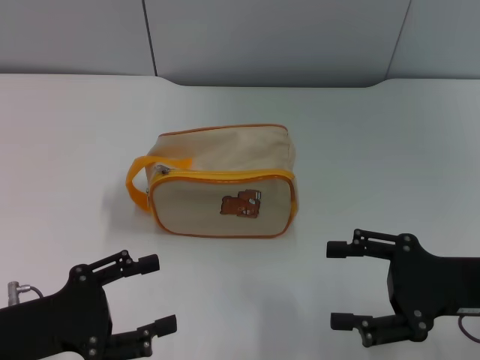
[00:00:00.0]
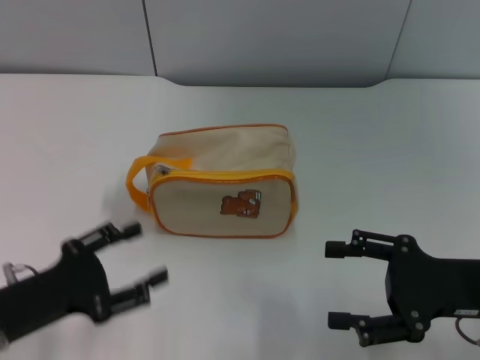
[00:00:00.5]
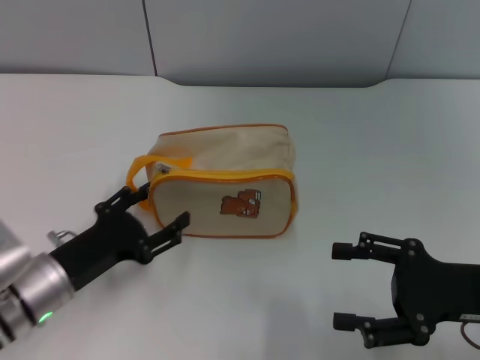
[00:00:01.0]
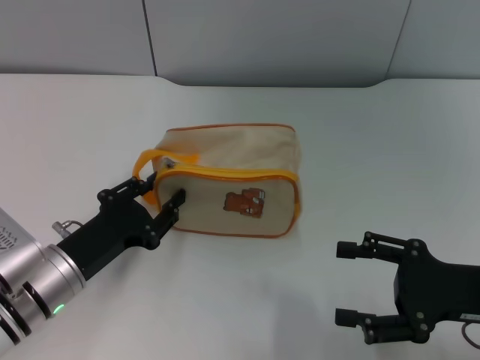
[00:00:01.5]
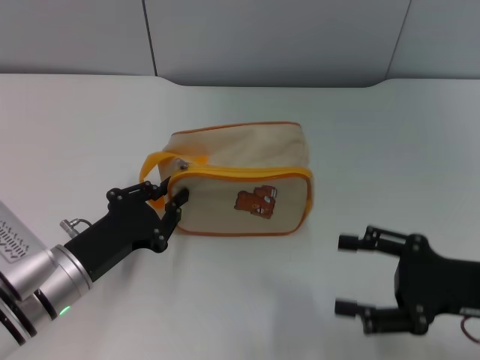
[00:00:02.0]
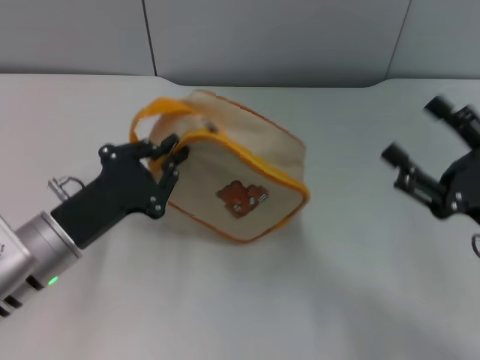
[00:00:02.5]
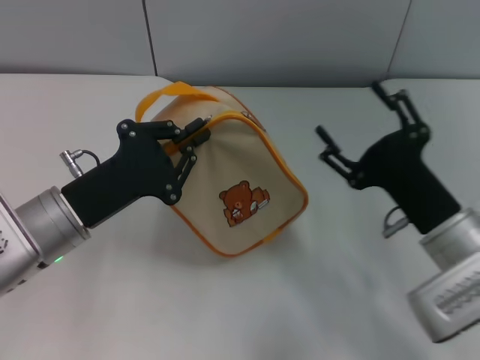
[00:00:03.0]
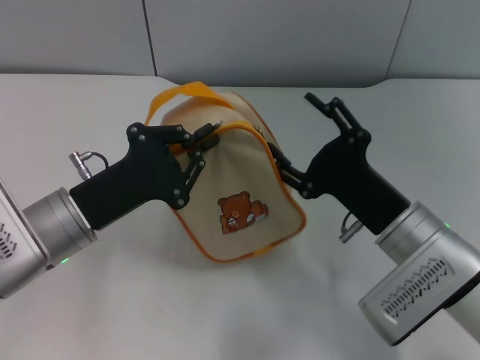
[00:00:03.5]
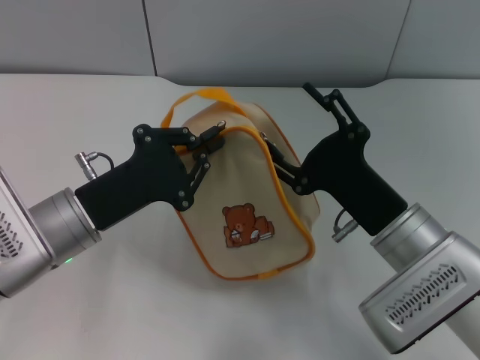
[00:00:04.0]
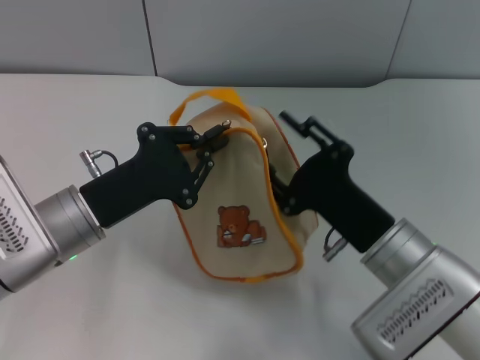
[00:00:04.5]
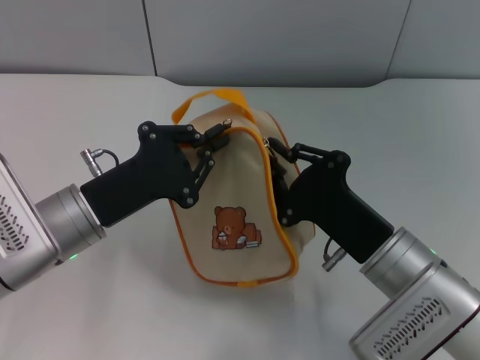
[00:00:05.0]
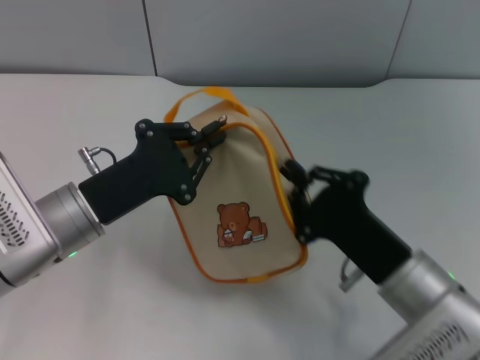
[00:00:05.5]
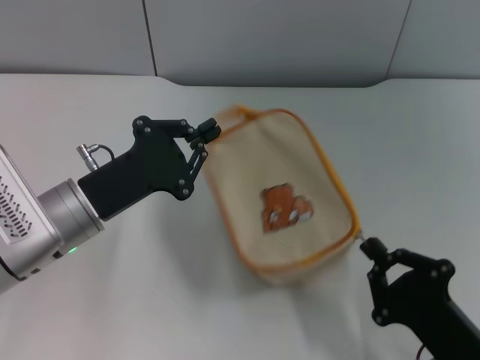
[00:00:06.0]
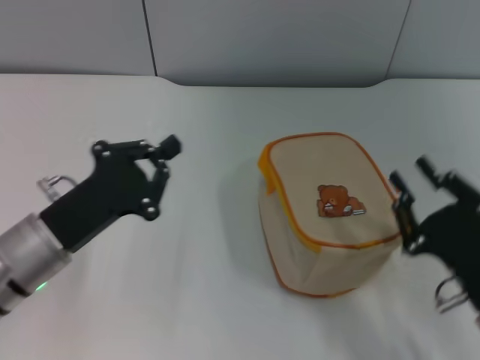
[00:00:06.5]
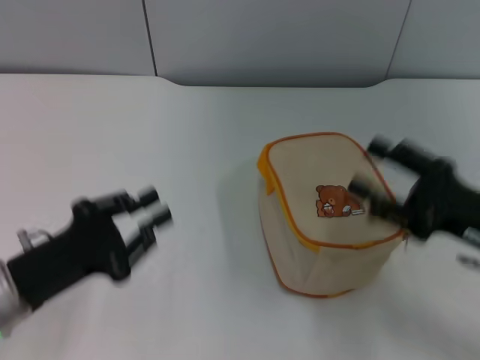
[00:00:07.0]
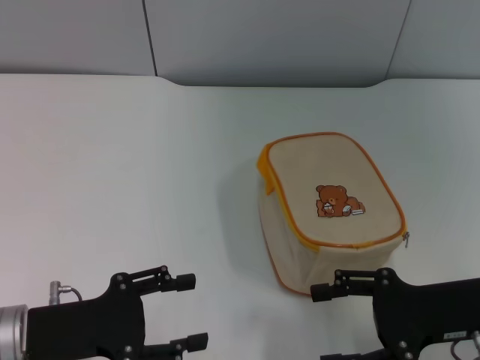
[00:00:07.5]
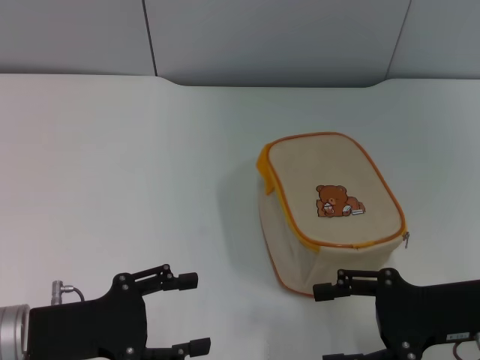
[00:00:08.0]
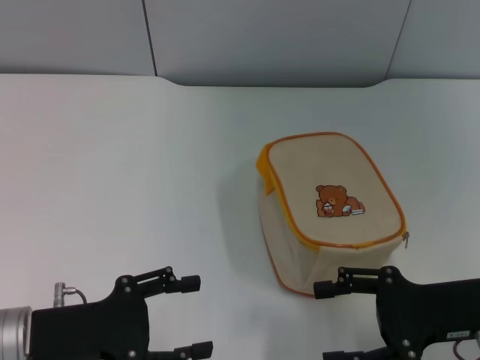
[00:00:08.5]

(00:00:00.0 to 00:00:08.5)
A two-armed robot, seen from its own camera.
Step, 00:00:00.0 - 00:00:02.5: Pick up the bag with left gripper.
Step, 00:00:03.0 - 00:00:06.5: Unzip the zipper of bag with right gripper.
00:00:00.0 - 00:00:02.0: The left gripper heads forward and to the right, covering approximately 10 cm, and closes.
00:00:02.0 - 00:00:04.0: The right gripper goes some 10 cm to the left. The left gripper travels upward by some 5 cm.
00:00:04.0 - 00:00:06.5: The right gripper travels to the right and backward by about 10 cm, and closes up.
00:00:06.5 - 00:00:08.5: The left gripper moves backward, approximately 5 cm, and opens its fingers. The right gripper is displaced forward by approximately 5 cm, and opens its fingers.

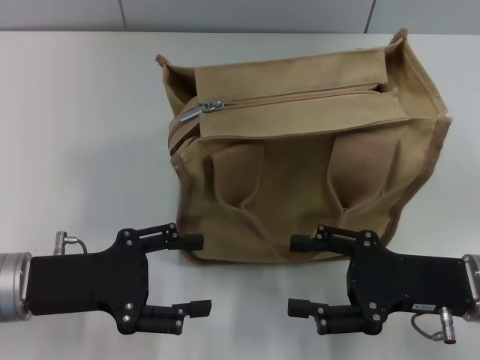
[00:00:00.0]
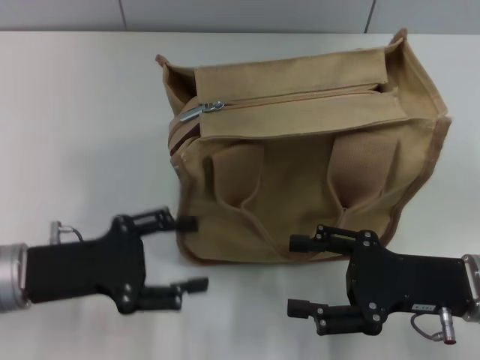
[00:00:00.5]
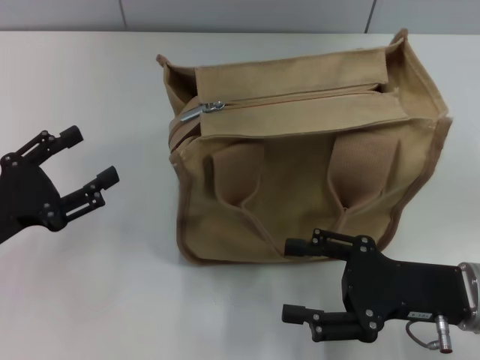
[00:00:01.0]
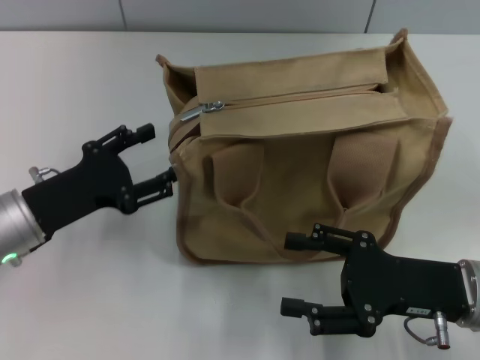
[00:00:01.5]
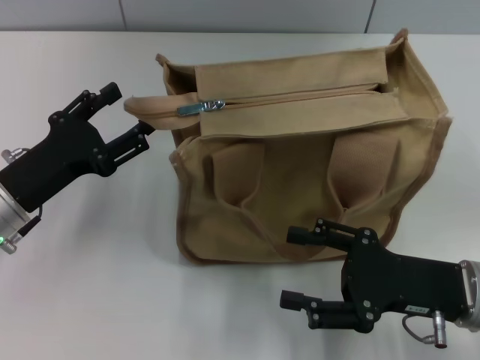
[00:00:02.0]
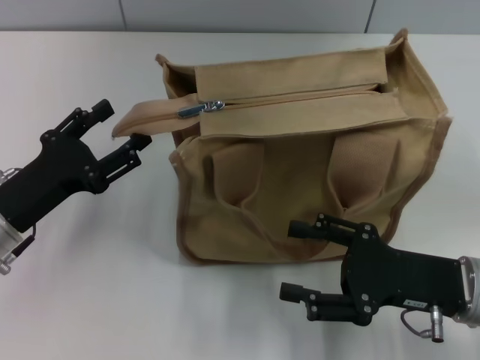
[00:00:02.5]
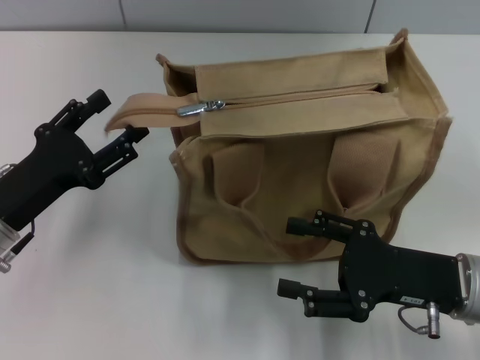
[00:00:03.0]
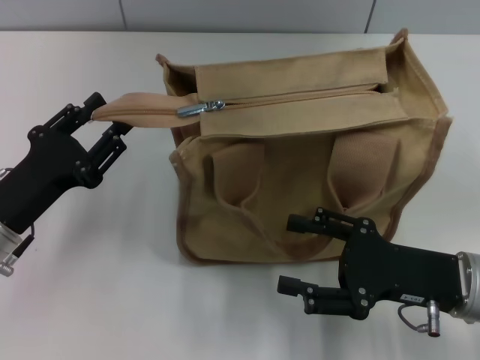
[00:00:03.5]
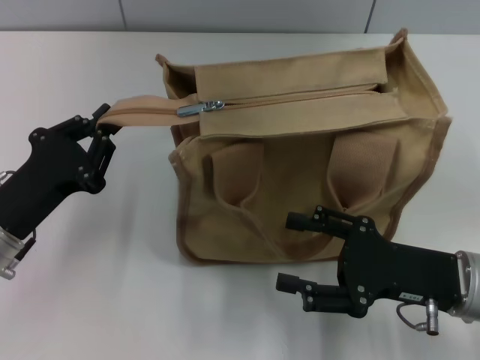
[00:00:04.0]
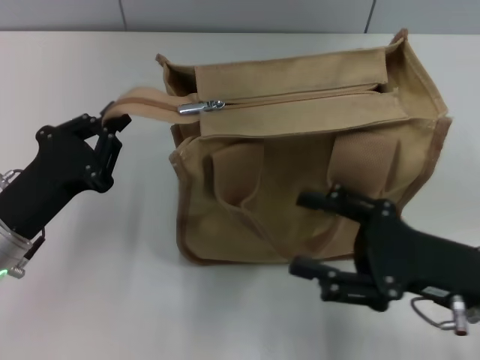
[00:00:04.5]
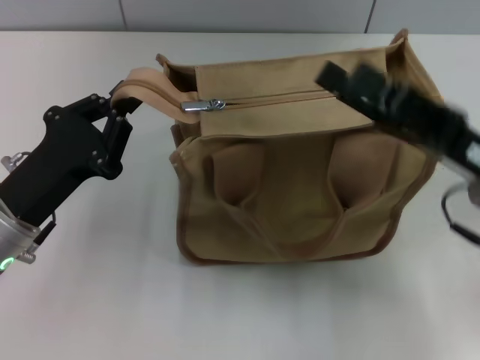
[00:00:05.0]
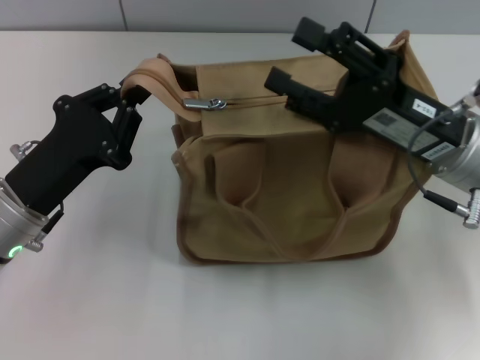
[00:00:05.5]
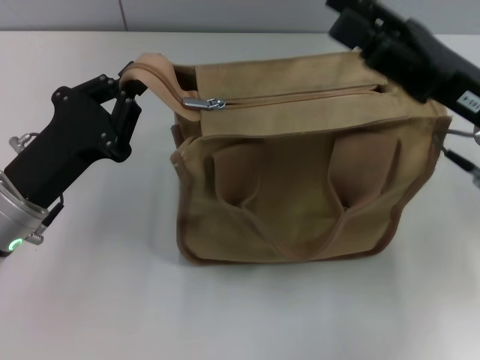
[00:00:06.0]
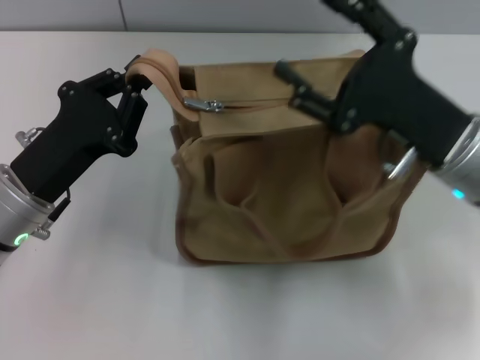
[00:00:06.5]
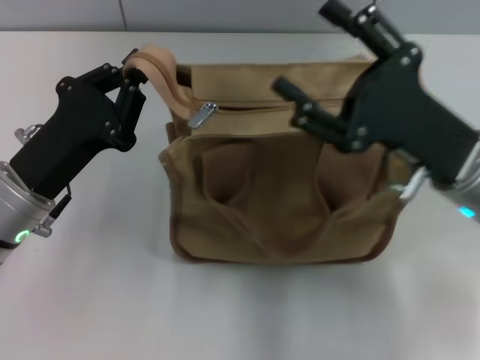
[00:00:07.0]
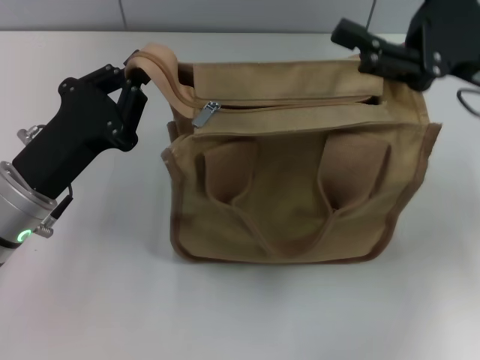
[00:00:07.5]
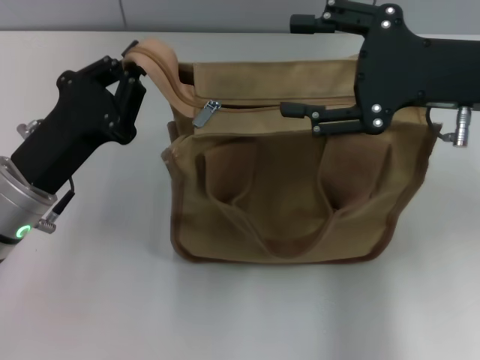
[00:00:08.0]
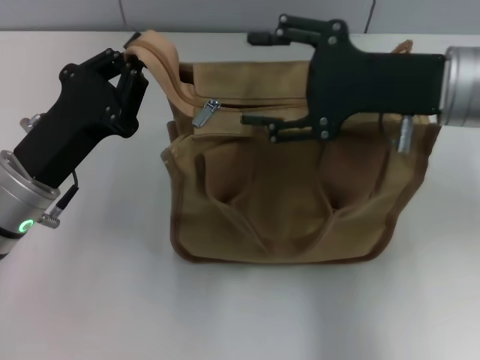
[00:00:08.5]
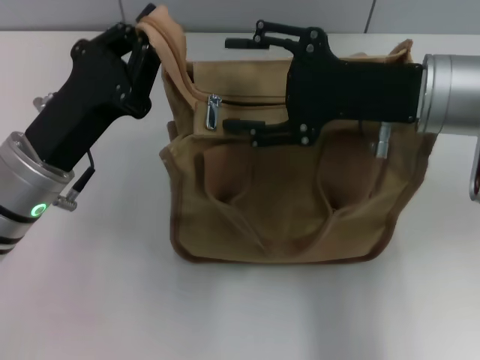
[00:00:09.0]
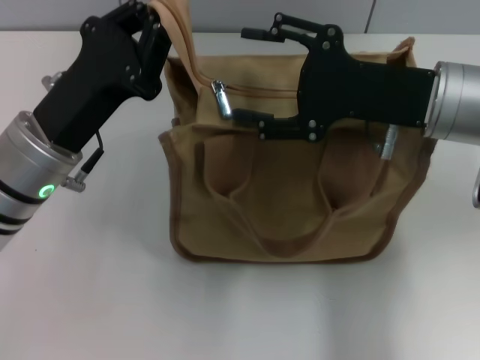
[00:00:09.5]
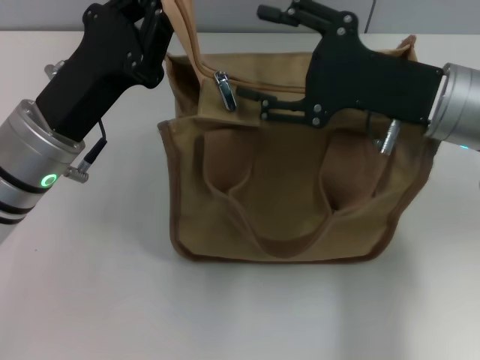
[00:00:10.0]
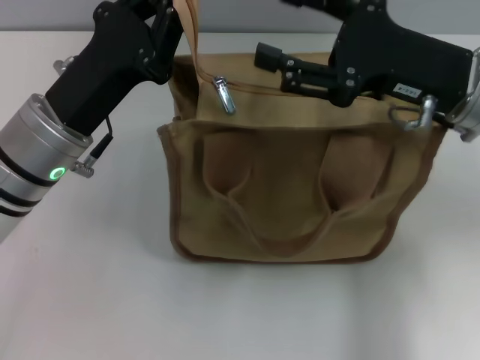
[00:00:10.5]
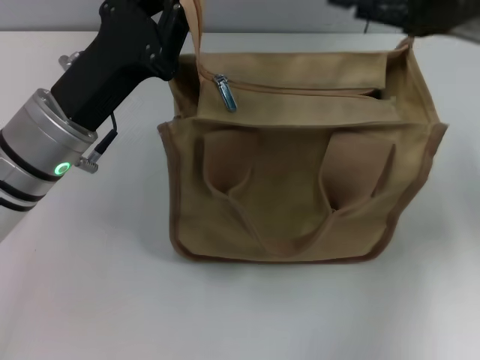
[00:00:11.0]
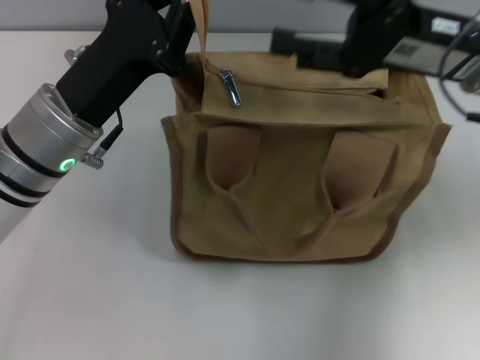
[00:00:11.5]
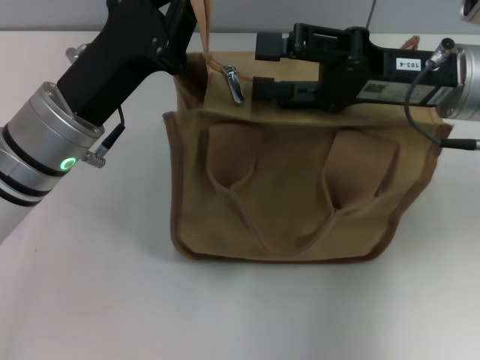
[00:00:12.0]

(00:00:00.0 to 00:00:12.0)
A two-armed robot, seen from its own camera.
00:00:02.0 - 00:00:04.0: The left gripper closes its fingers.
00:00:04.0 - 00:00:06.0: The right gripper is displaced upward and forward by about 10 cm.
00:00:06.0 - 00:00:08.0: The right gripper heads upward, covering some 5 cm.
00:00:08.0 - 00:00:10.0: The right gripper changes place by about 5 cm. The left gripper ends up some 5 cm from where it was.

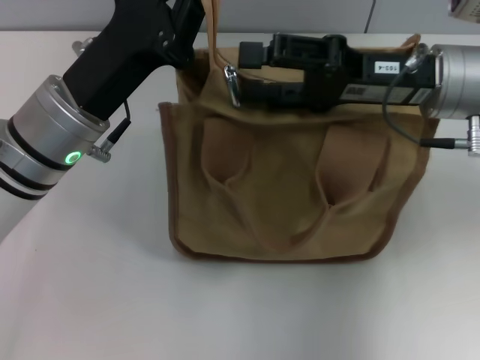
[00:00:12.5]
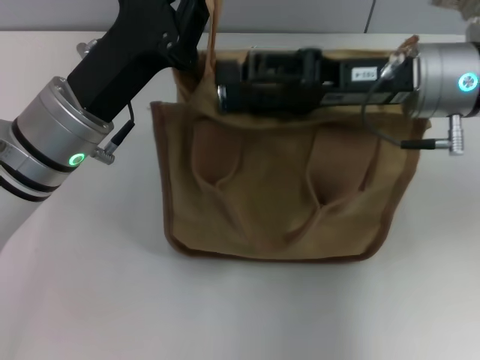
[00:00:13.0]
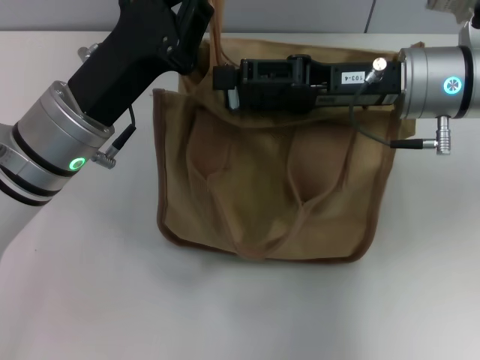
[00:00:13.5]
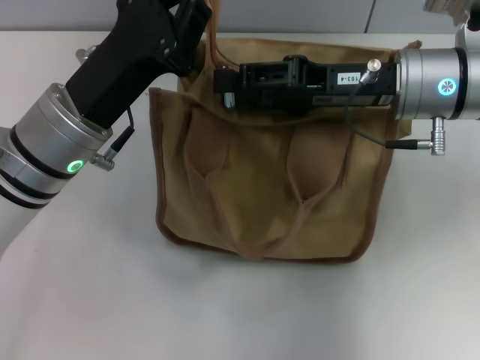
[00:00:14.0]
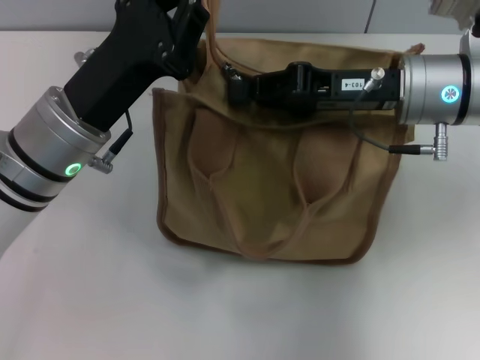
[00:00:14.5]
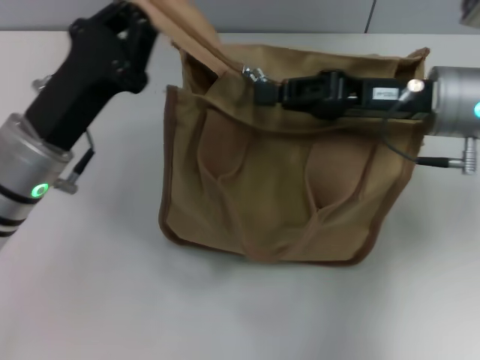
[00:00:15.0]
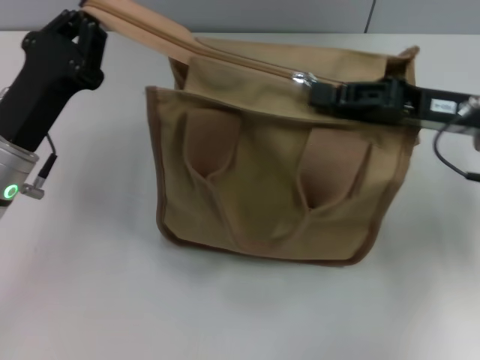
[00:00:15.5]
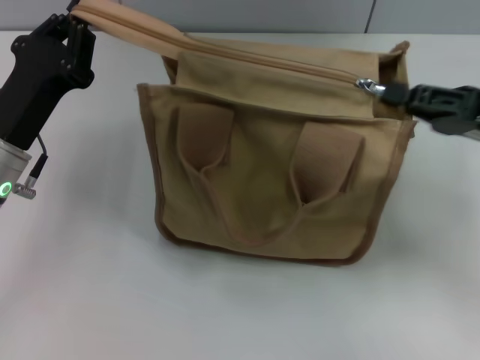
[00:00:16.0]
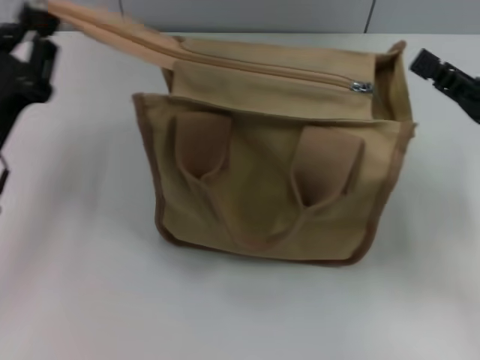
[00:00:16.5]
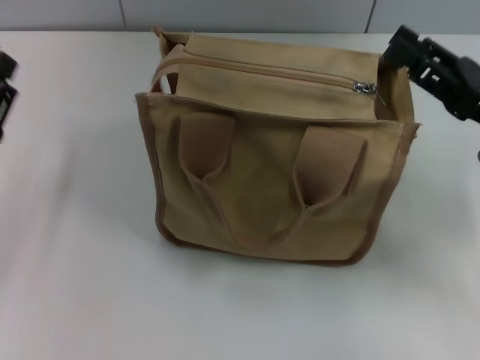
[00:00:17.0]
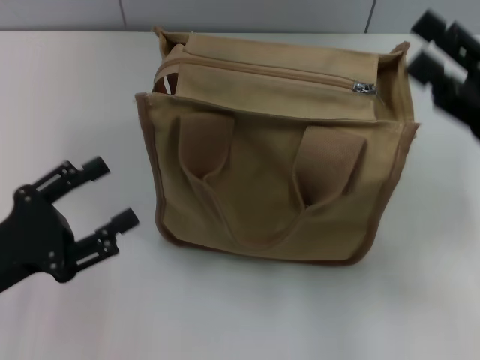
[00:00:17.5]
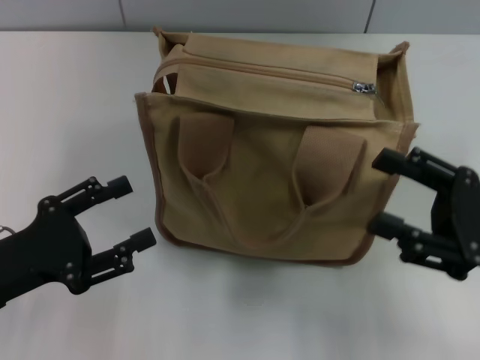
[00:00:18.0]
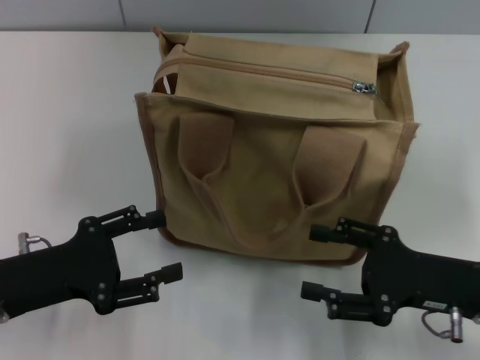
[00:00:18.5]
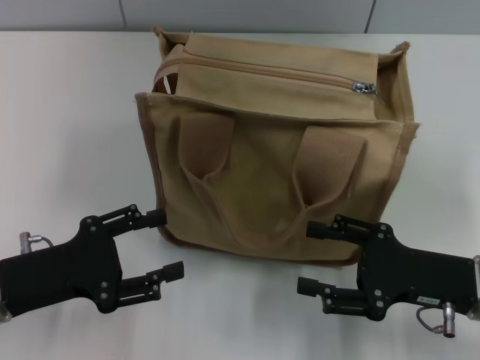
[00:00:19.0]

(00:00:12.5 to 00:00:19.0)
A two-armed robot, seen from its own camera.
Step, 00:00:12.5 - 00:00:16.0: Pull up the zipper with your right hand.
00:00:12.5 - 00:00:14.5: The right gripper closes.
00:00:14.5 - 00:00:17.0: The left gripper shifts approximately 15 cm to the left, backward and downward, and opens its fingers. Meanwhile the right gripper goes about 15 cm to the right and backward, and opens up.
00:00:17.0 - 00:00:19.0: The right gripper heads downward and backward, covering about 10 cm.
